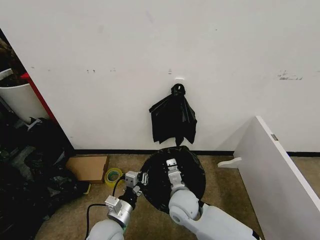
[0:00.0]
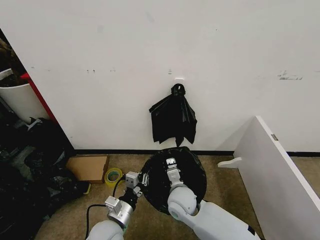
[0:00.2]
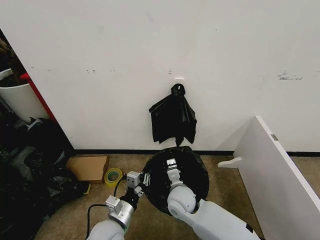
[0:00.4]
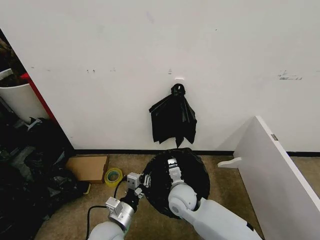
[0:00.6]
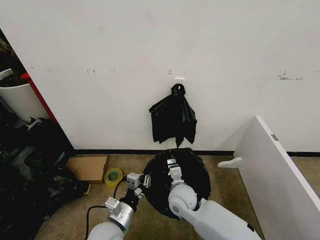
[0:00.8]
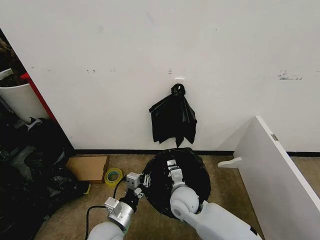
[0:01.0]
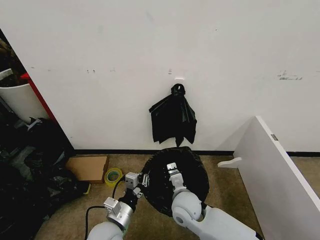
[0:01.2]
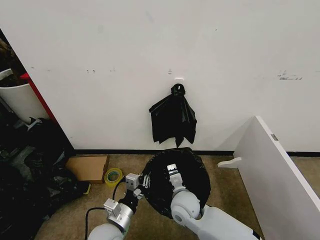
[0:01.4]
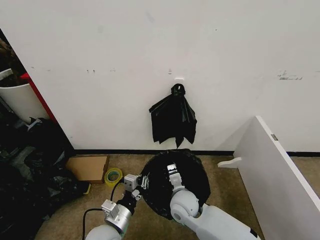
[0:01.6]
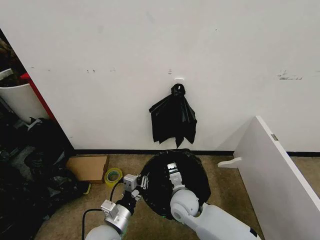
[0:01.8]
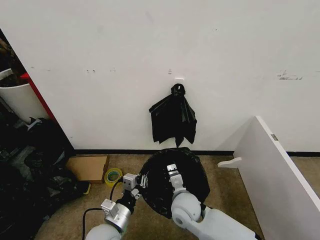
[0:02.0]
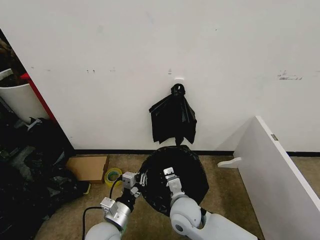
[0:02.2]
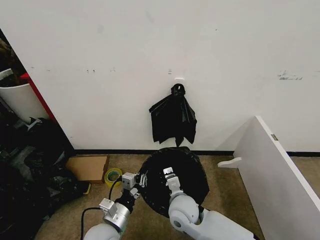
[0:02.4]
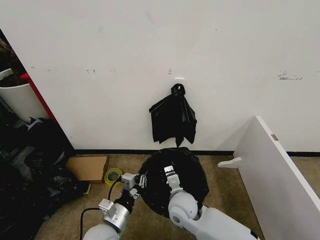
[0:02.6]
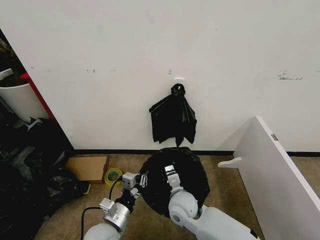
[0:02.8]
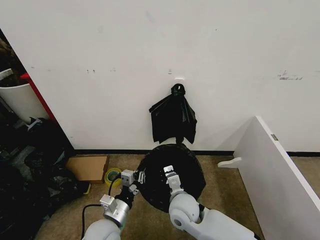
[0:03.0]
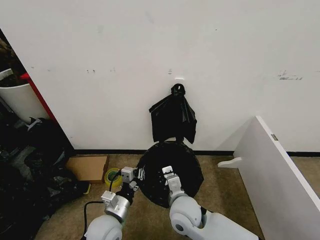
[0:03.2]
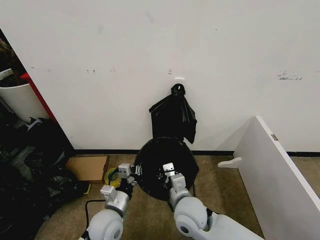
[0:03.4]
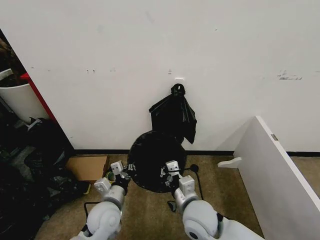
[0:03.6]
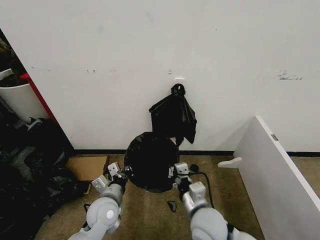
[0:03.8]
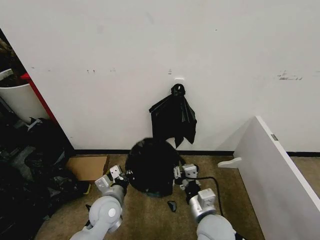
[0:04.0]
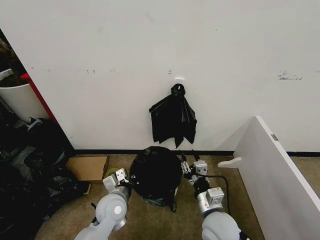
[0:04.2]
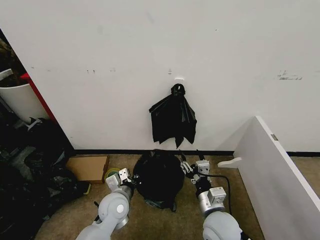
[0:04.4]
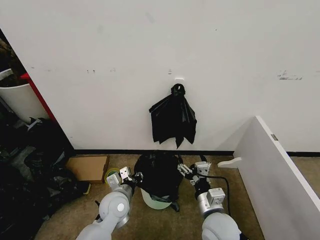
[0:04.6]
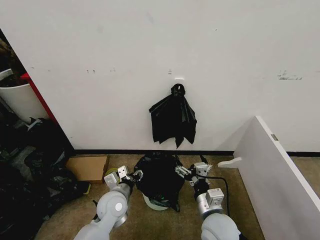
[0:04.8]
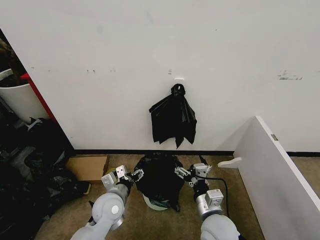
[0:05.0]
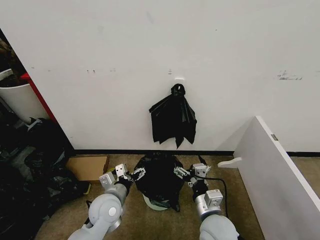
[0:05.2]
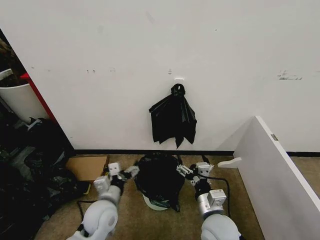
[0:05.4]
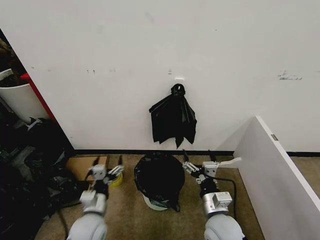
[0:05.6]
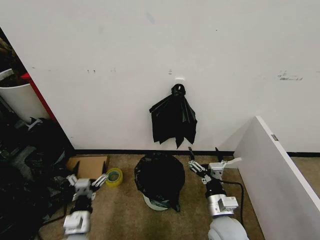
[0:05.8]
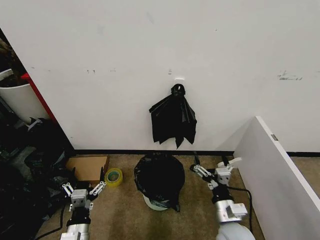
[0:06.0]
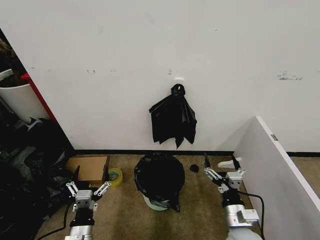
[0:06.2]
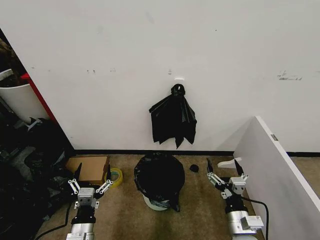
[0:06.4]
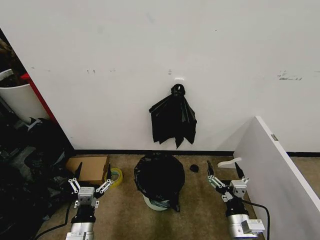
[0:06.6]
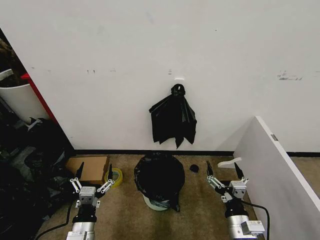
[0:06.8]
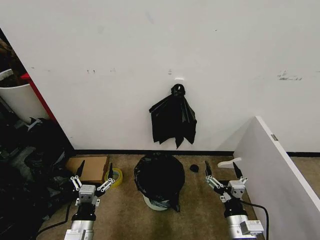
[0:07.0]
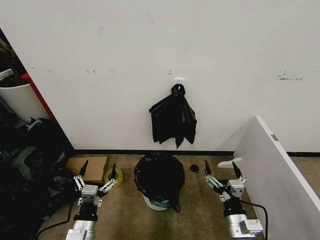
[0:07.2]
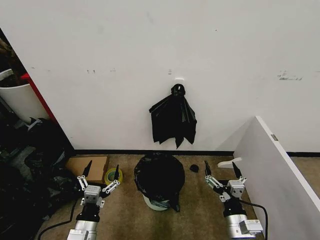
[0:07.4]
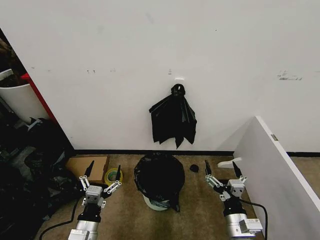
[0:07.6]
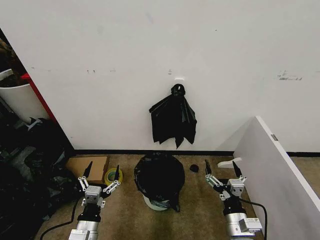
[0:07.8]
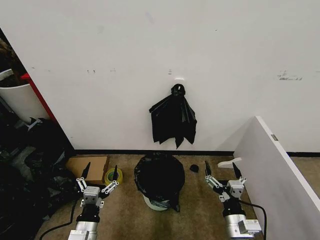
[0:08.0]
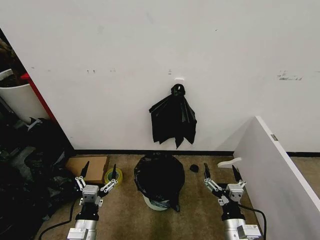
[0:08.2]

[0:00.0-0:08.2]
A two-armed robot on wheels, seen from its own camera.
Task of the whole recording: Place the garbage bag over the trash bin.
0:00.0 to 0:01.6: The grippers make only small movements.
0:01.6 to 0:03.2: The right gripper changes place by some 5 cm.
0:03.2 to 0:05.0: The left gripper moves forward, about 5 cm, and opens up. The right gripper travels to the right by about 10 cm, and opens.
0:05.0 to 0:06.6: The right gripper travels to the right and backward by about 10 cm; the left gripper shifts about 15 cm backward and to the left.
0:06.6 to 0:08.2: The grippers make only small movements.
